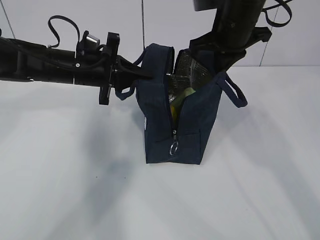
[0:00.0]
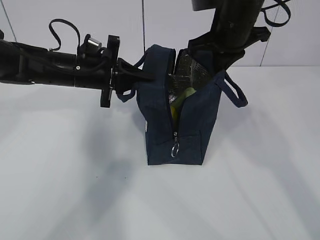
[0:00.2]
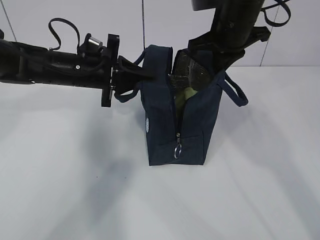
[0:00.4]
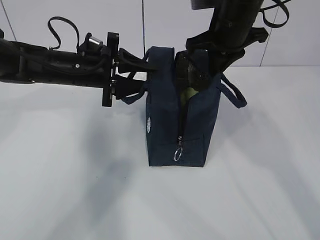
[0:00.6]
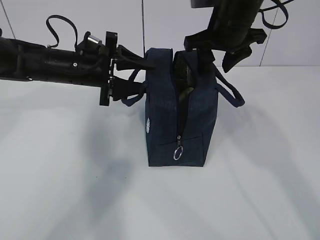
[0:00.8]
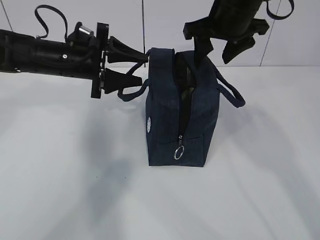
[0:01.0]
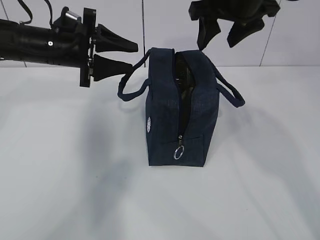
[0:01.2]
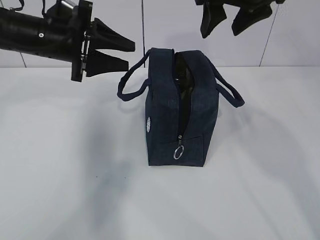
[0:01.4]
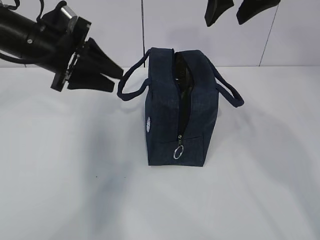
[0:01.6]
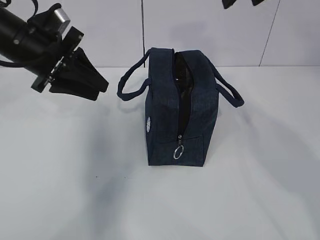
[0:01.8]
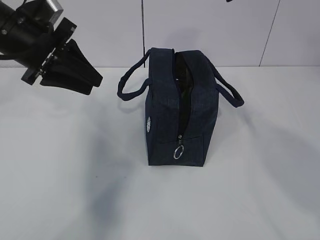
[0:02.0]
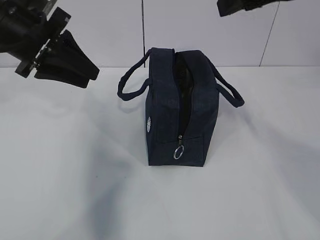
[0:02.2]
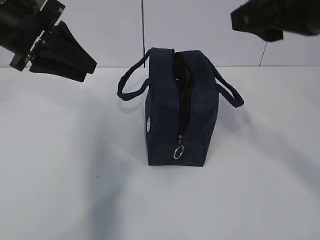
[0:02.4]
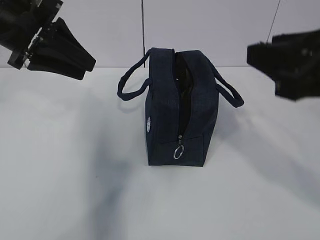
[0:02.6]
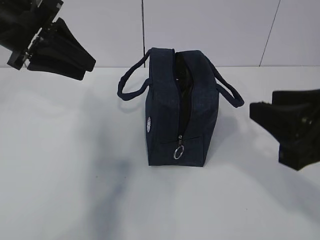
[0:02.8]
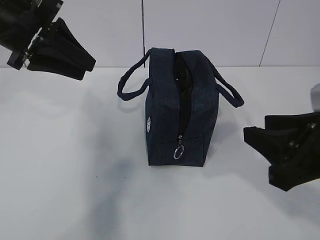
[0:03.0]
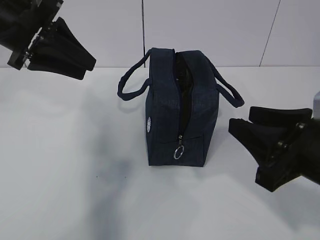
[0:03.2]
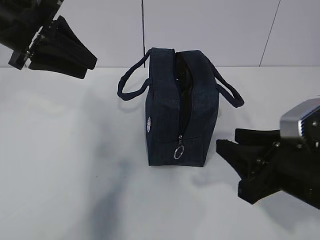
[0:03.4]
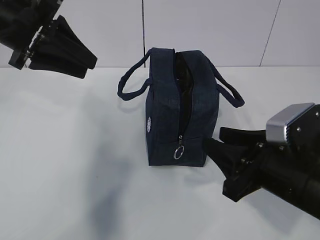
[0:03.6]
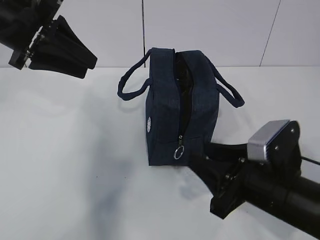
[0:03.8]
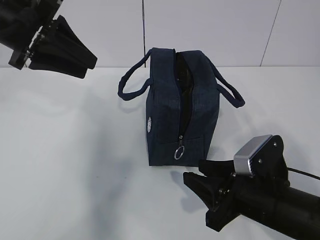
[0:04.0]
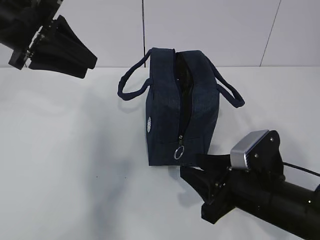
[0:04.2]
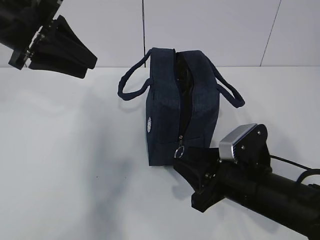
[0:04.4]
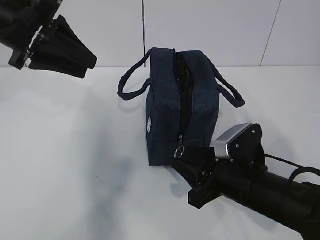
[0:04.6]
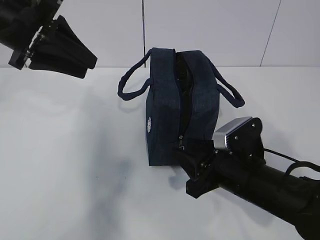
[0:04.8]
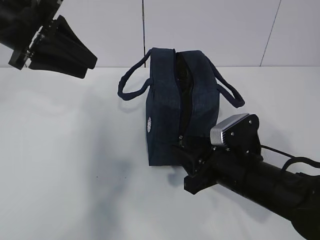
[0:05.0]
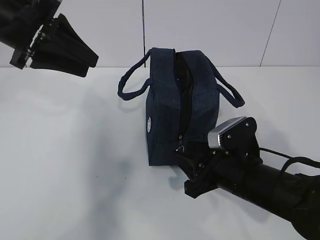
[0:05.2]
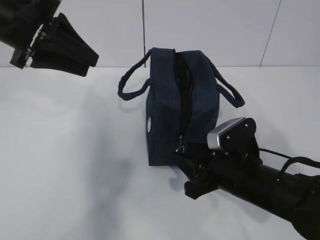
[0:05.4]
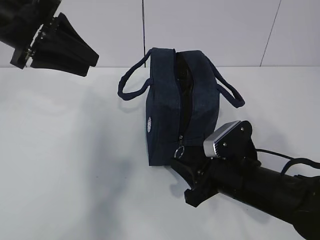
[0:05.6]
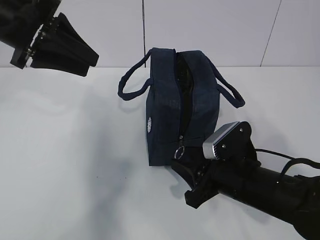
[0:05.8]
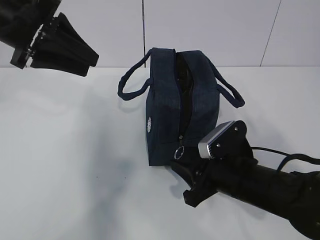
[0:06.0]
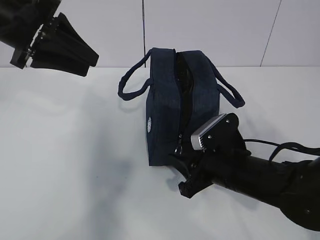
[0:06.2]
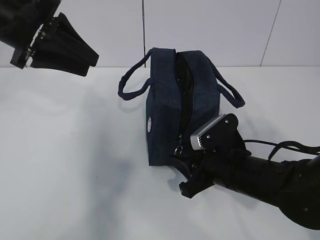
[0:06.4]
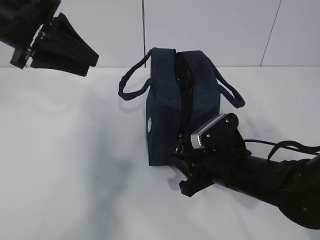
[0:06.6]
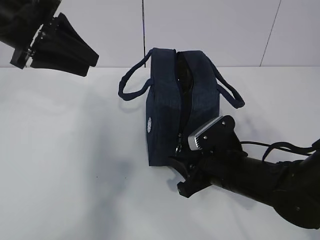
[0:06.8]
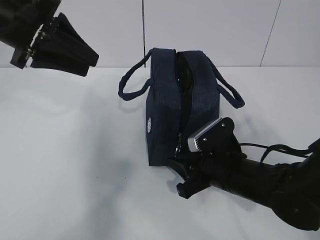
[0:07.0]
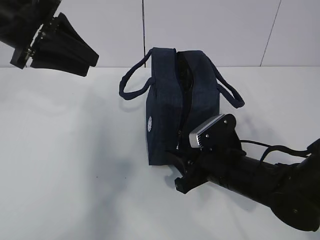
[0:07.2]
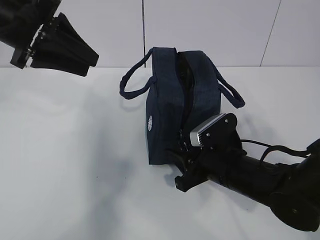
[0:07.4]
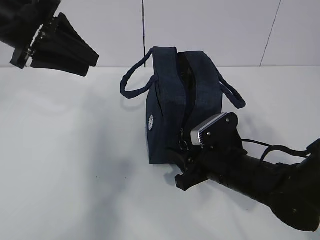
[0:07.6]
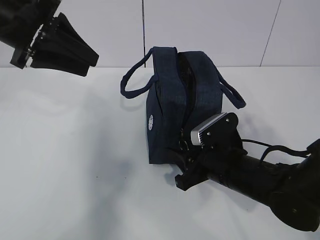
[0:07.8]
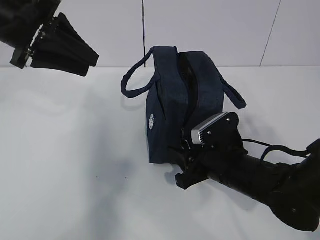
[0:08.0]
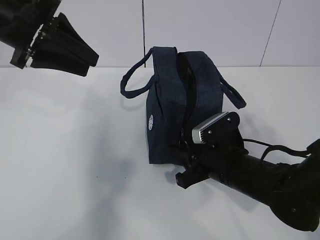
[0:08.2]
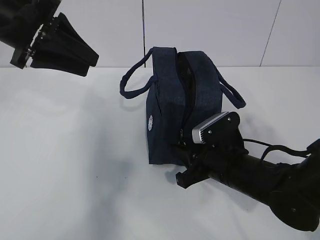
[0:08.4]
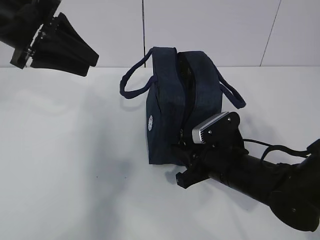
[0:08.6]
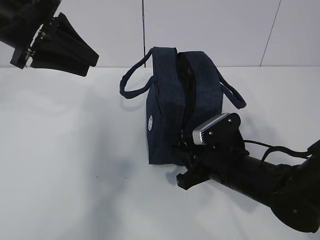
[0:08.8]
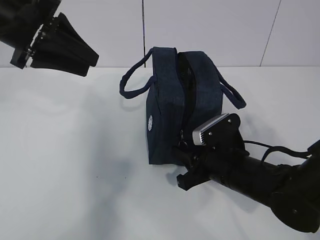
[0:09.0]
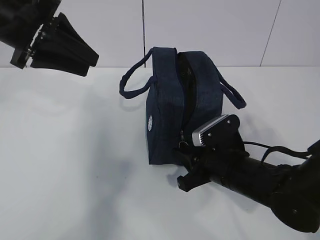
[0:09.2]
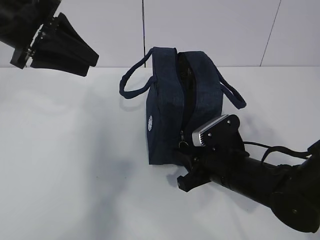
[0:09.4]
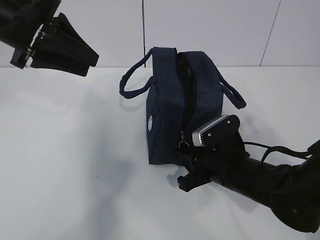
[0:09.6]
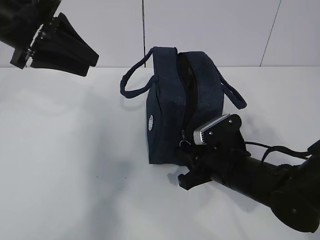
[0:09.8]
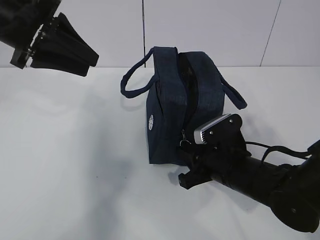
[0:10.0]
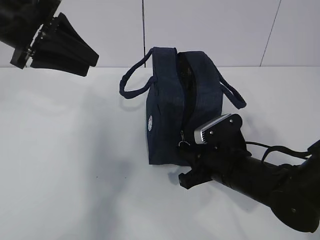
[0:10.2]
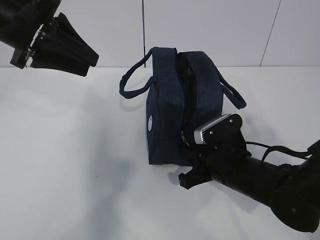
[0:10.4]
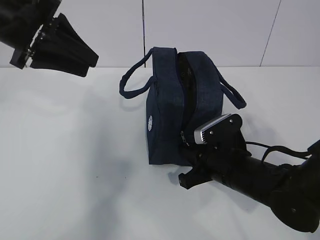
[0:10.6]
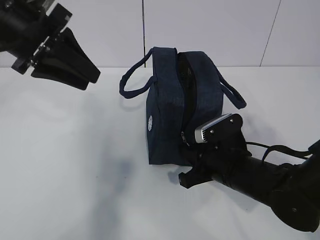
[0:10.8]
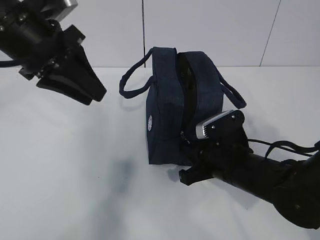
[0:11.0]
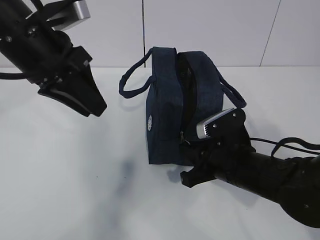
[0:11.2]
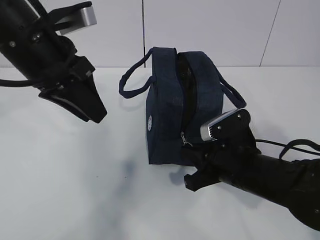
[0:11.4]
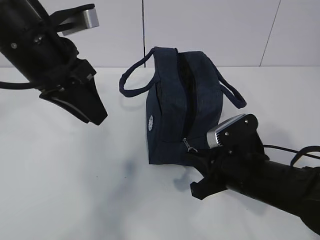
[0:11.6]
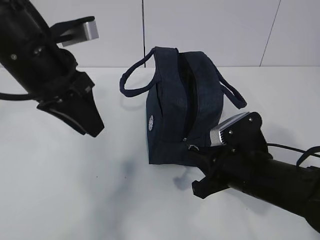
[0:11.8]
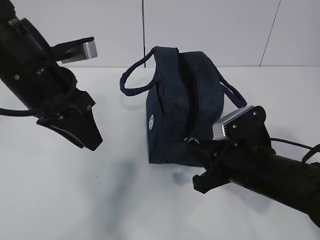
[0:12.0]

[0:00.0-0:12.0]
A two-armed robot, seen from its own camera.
0:00.0 to 0:01.6: The left gripper goes roughly 5 cm upward, and opens. The right gripper heads upward and backward, covering roughly 10 cm, and opens its fingers.
0:01.6 to 0:03.0: The right gripper heads backward and downward, covering about 25 cm; the left gripper moves upward, about 5 cm.
0:03.0 to 0:04.4: The right gripper travels downward, forward and to the left by about 15 cm.
0:04.4 to 0:07.6: The grippers move only a little.
0:07.6 to 0:10.4: The two grippers keep their place.
0:10.4 to 0:12.0: The left gripper goes about 5 cm downward. The right gripper moves about 5 cm.

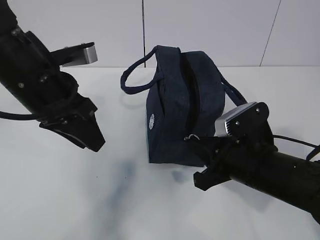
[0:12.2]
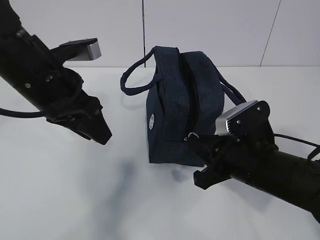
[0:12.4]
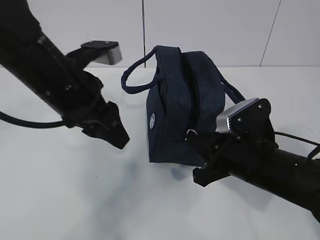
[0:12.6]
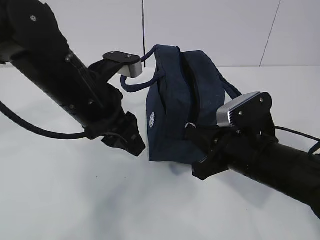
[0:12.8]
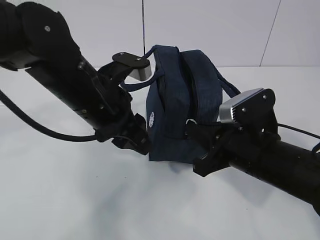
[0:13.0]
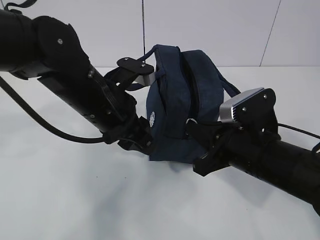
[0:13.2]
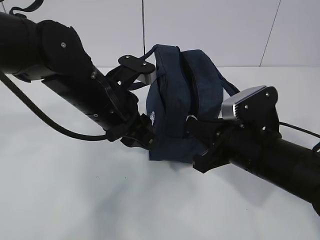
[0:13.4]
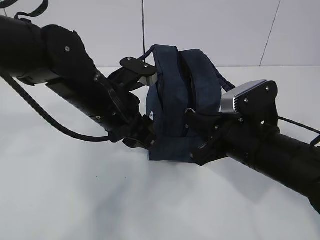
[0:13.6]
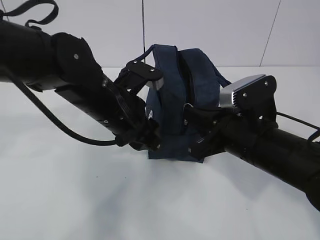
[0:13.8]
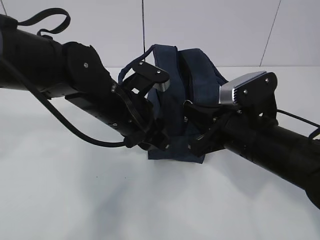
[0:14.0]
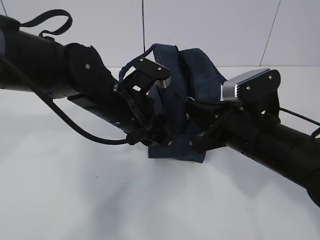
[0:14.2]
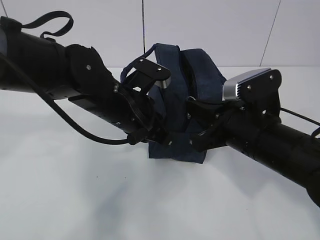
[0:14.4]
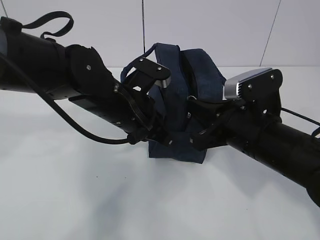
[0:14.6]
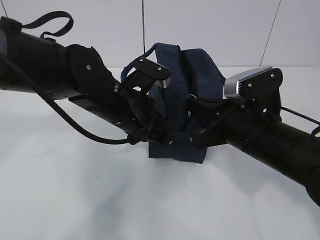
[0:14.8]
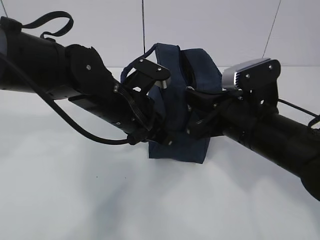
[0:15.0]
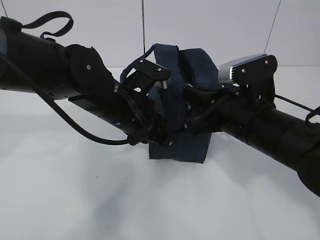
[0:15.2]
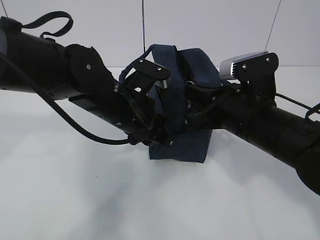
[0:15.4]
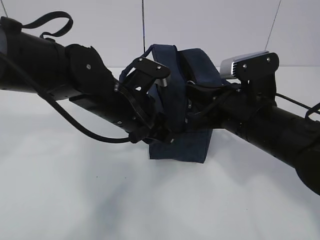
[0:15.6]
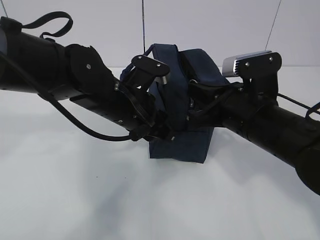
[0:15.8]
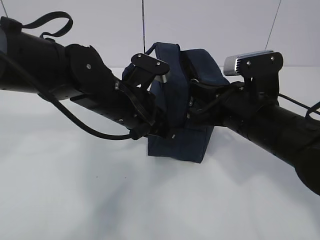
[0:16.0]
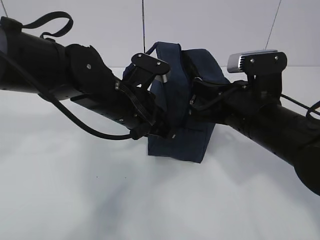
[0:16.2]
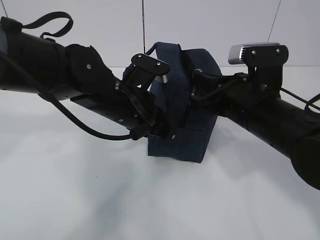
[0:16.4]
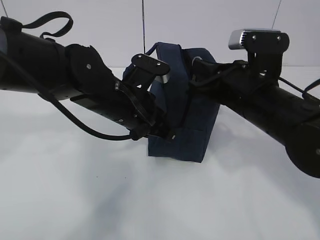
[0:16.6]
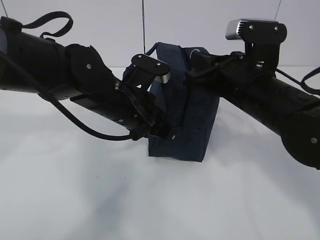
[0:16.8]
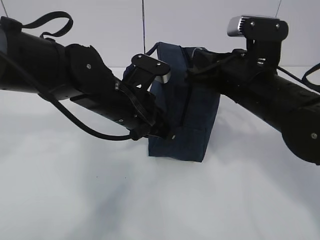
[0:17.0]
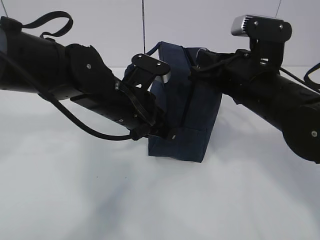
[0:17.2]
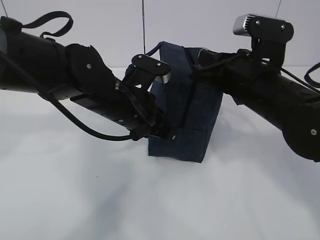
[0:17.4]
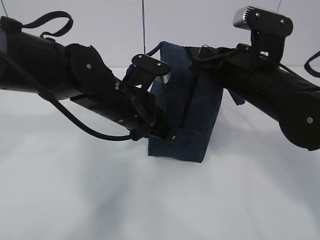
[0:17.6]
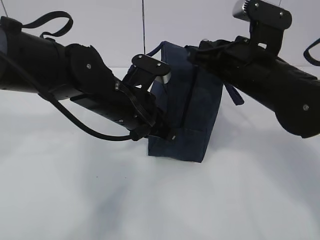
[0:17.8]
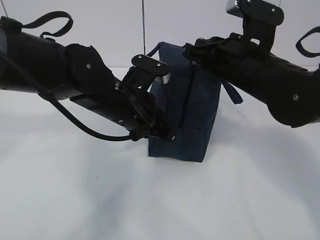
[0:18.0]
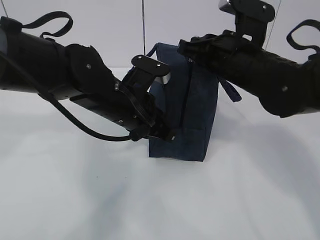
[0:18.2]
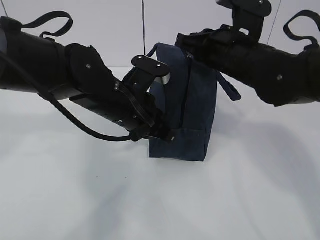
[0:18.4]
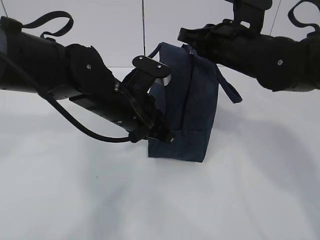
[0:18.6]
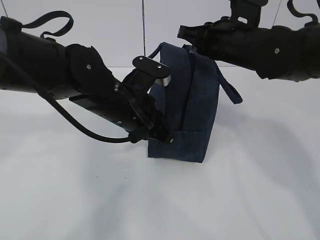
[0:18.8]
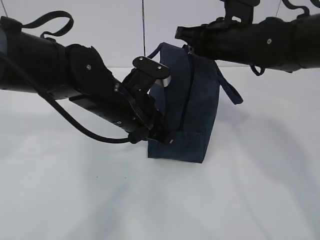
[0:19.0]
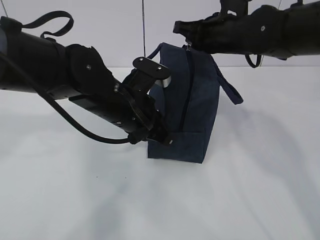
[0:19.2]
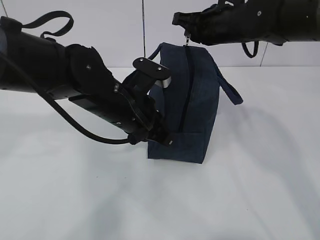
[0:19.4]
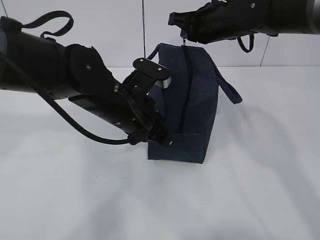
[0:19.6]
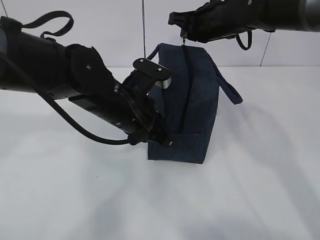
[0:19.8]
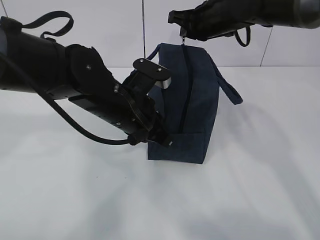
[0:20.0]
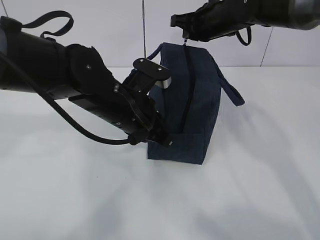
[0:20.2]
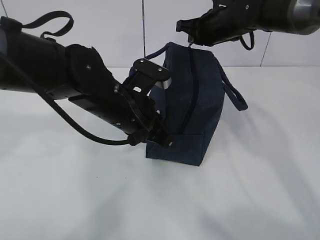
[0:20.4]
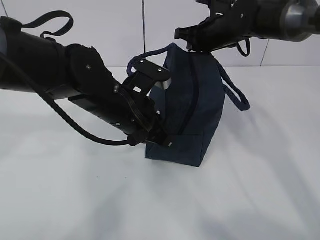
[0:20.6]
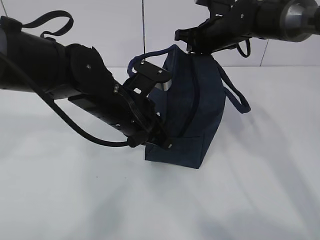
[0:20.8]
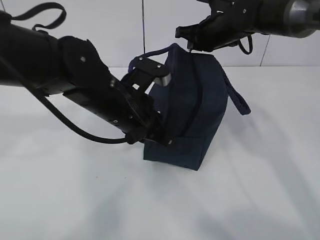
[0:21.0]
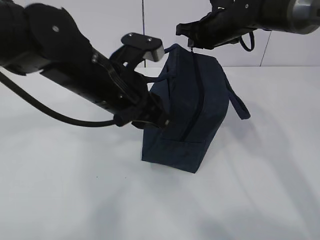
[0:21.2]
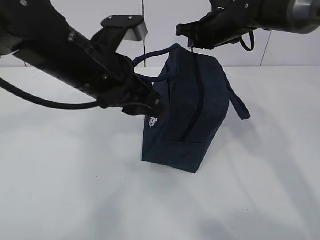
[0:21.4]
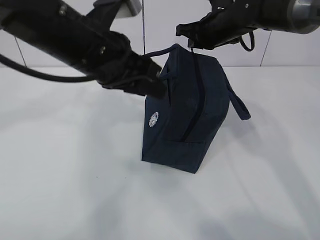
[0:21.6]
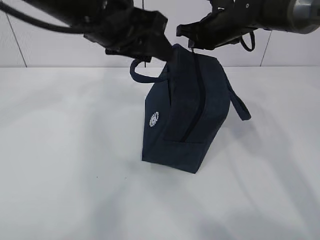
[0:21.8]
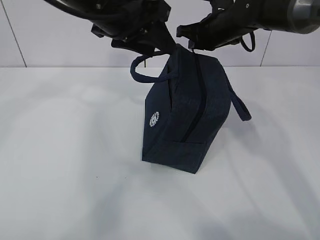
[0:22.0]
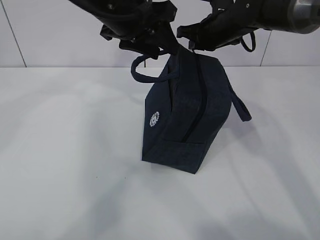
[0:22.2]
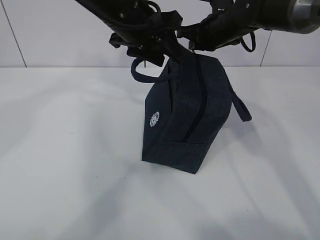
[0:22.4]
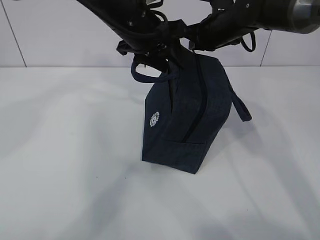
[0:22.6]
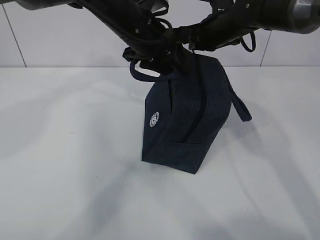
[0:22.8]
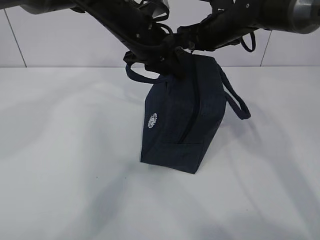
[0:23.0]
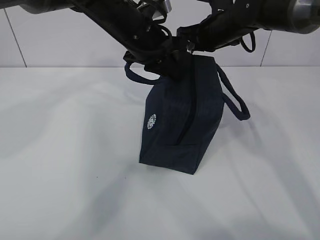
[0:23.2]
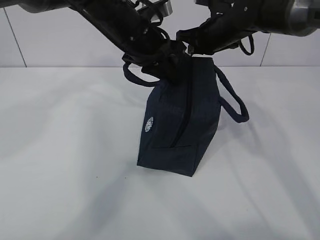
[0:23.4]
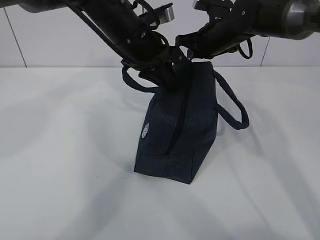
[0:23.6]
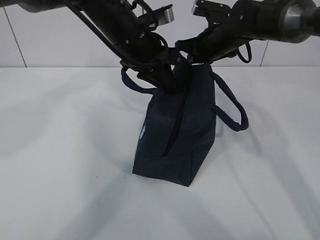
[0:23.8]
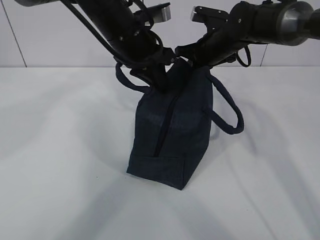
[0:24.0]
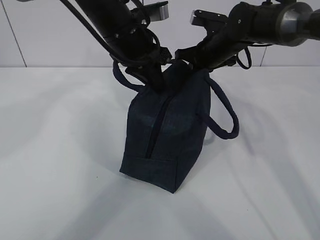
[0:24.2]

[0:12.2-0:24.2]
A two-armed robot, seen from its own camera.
0:12.2 to 0:13.8: The left gripper heads to the right and downward, covering approximately 10 cm.
0:13.8 to 0:15.2: The left gripper closes its fingers.
0:15.2 to 0:16.6: The left gripper opens, then closes again.
0:16.6 to 0:18.2: The right gripper goes approximately 5 cm forward.
0:18.2 to 0:19.8: The right gripper is displaced forward by about 10 cm.
0:19.8 to 0:21.2: The left gripper opens its fingers.
0:21.2 to 0:22.6: The left gripper goes some 10 cm forward and upward, and opens.
0:22.6 to 0:24.2: The left gripper closes up.
